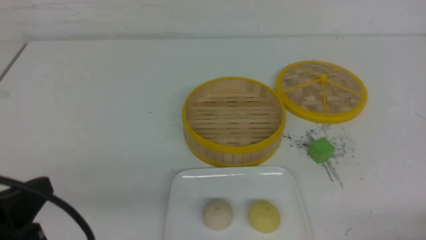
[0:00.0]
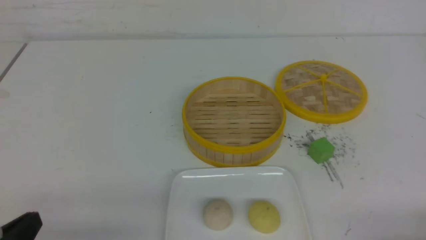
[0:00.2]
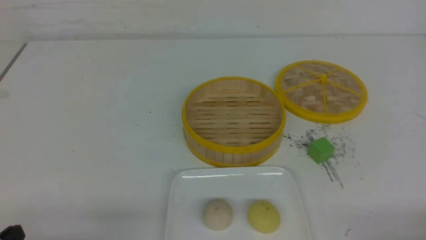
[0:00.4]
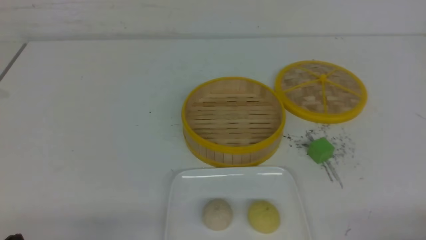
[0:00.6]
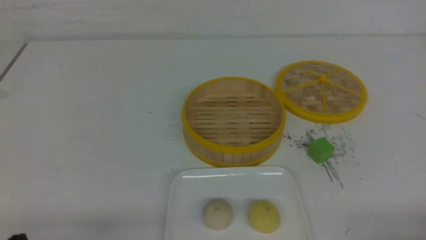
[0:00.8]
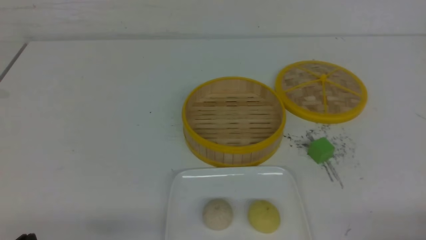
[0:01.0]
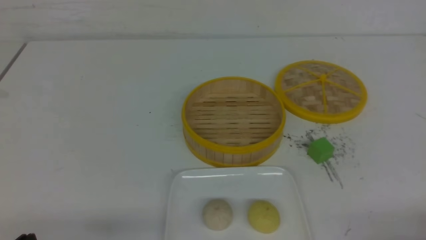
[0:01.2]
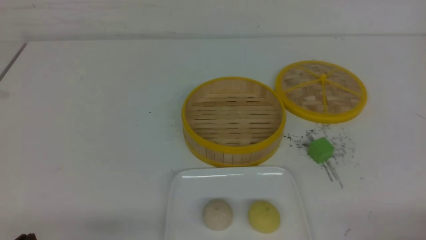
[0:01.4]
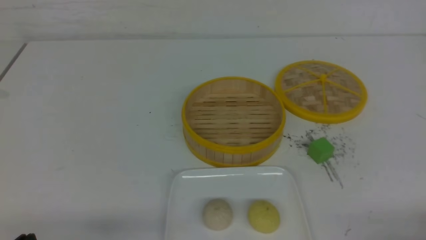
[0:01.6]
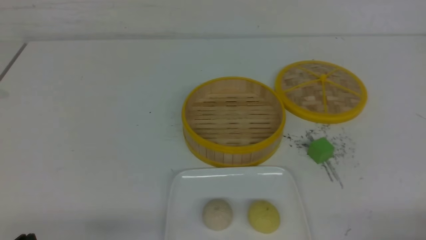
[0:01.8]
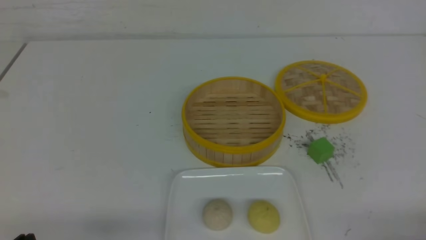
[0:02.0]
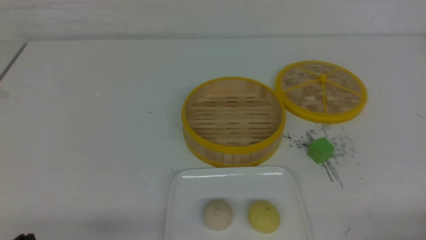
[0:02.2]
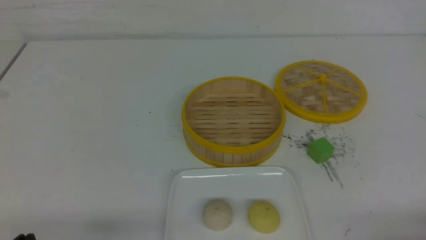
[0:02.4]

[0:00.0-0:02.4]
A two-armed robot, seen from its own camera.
0:00.0 to 0:01.2: The left gripper shifts approximately 10 cm downward.
0:01.2 to 0:02.4: Neither gripper changes place.
